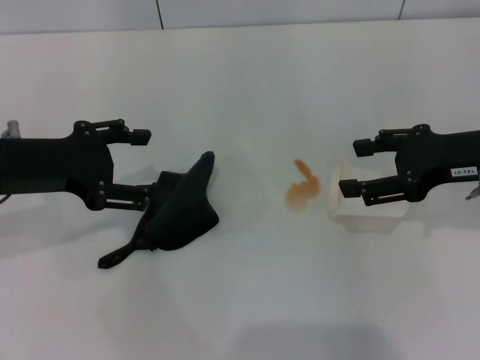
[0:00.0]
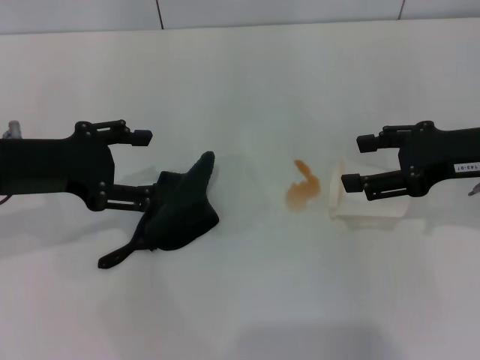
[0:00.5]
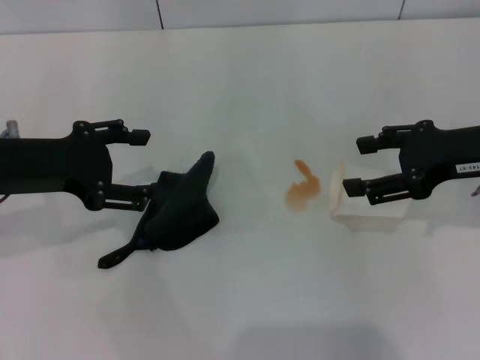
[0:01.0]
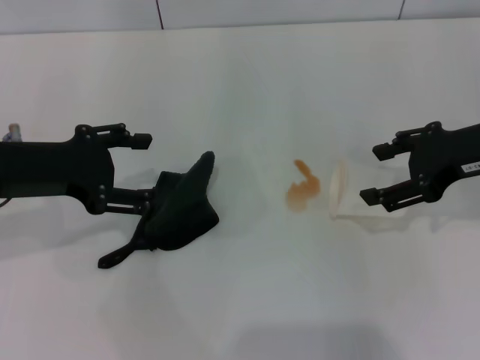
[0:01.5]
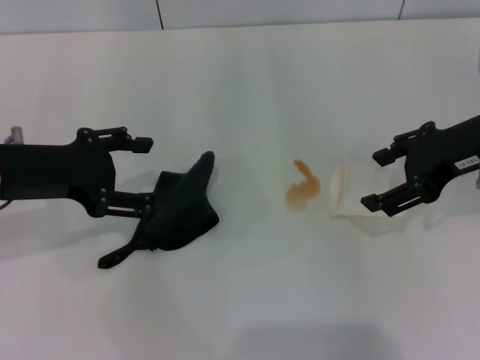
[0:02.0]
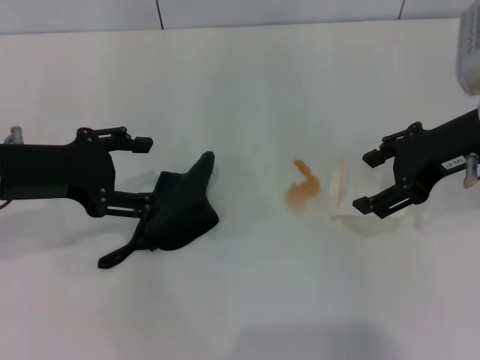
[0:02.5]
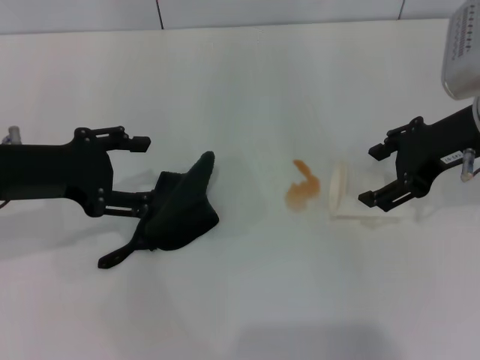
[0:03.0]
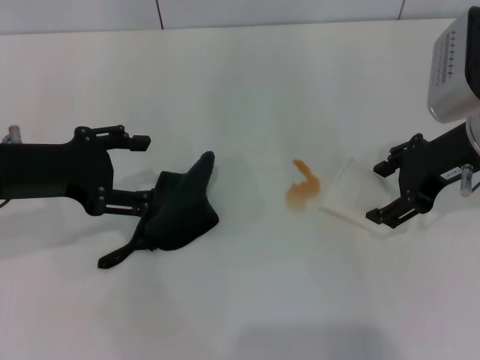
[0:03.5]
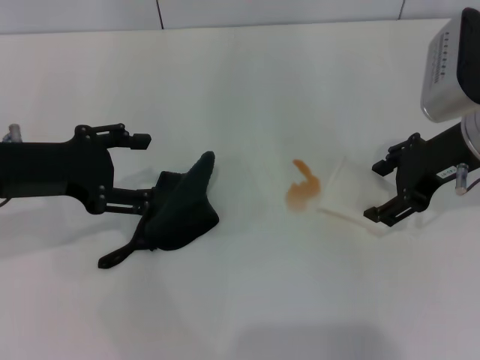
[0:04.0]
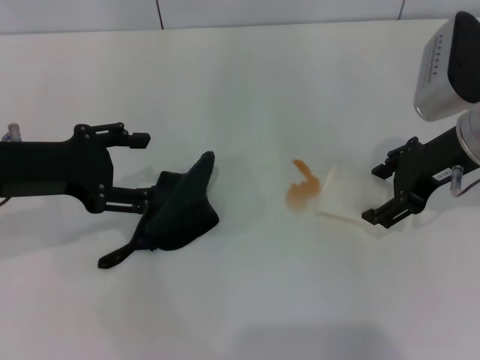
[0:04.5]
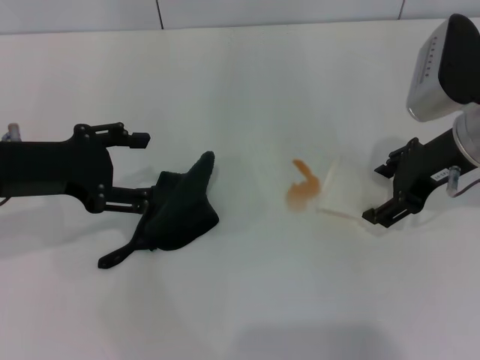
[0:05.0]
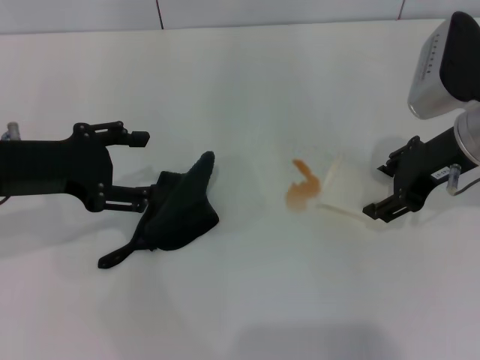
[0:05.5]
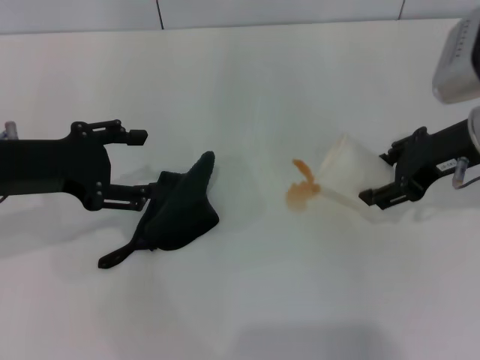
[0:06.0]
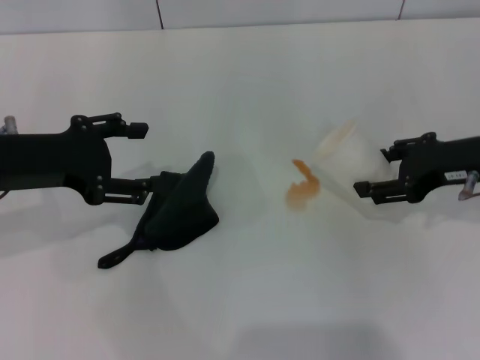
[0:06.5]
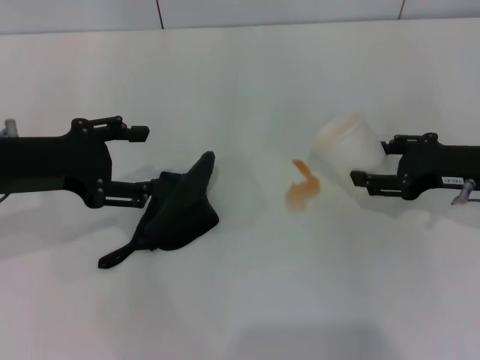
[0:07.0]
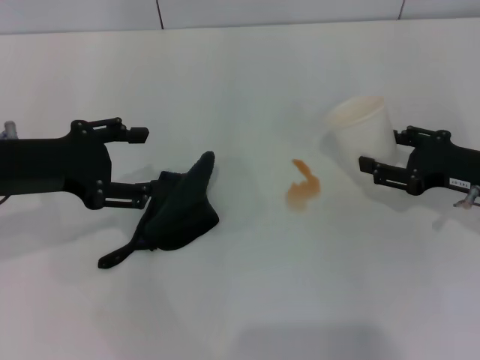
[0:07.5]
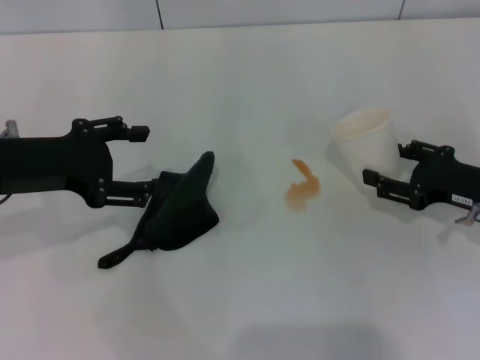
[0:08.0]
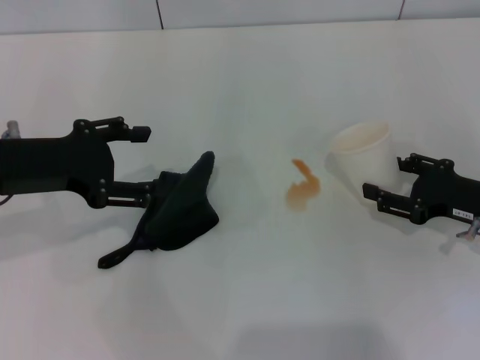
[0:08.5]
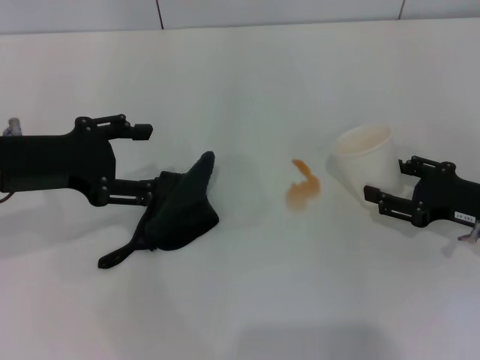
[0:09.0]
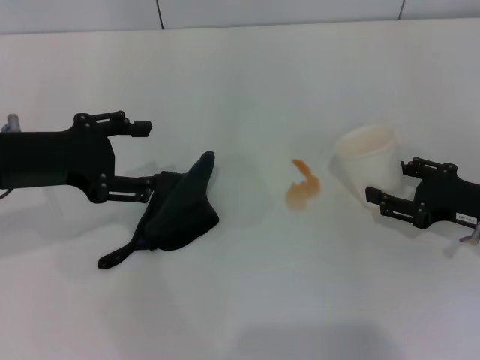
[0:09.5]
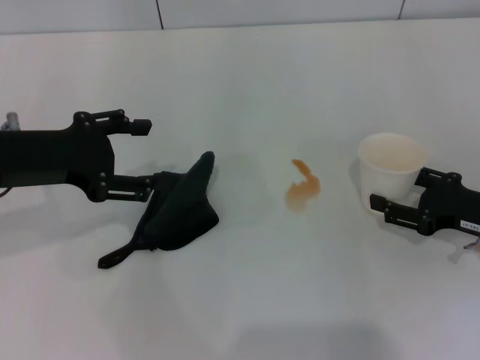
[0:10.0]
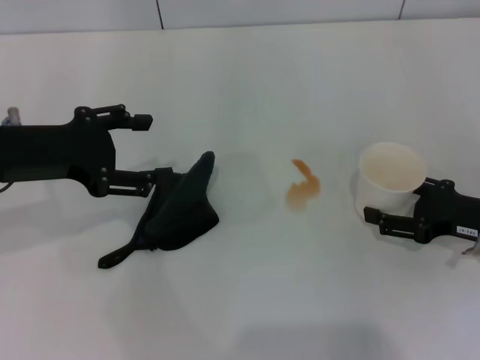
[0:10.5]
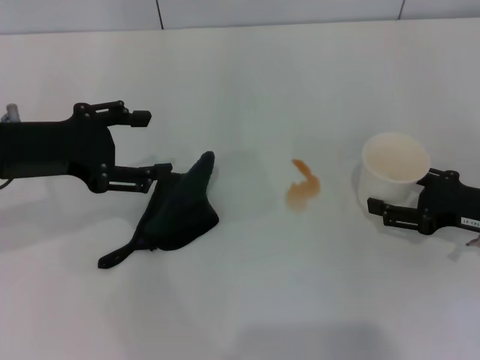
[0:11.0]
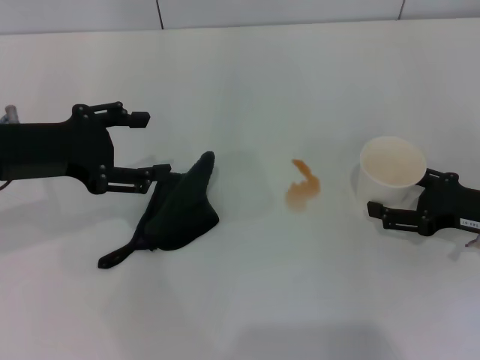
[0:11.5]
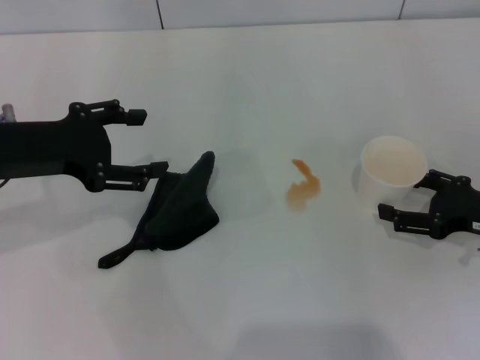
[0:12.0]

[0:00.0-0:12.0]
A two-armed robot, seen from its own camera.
Step, 0:00.0 to 0:05.5: Grasp the paper cup with the right gripper.
0:02.0 to 0:04.0: The grippers stay close to where they were, moving slightly.
0:04.0 to 0:06.0: The right gripper closes up.
0:06.0 to 0:08.0: The right gripper moves downward and to the right, some 15 cm.
0:08.0 to 0:10.0: There are only small adjustments of the grippers.
0:10.0 to 0:12.0: The right gripper opens its fingers.

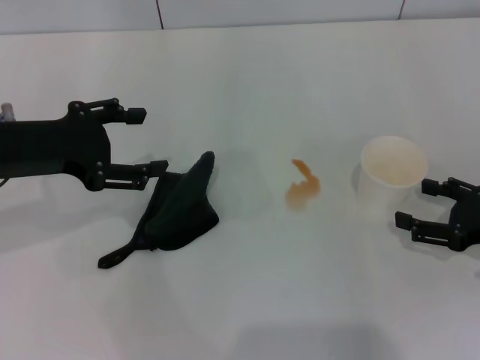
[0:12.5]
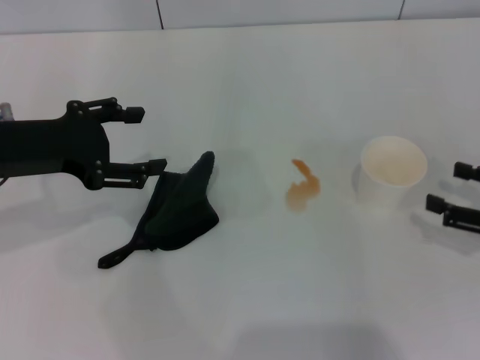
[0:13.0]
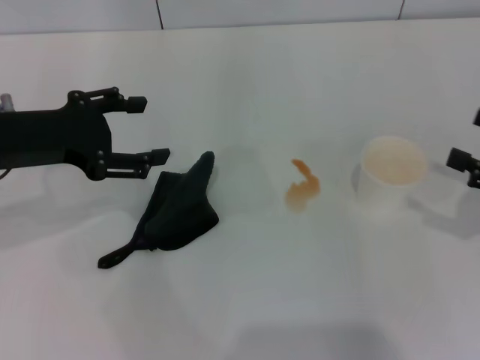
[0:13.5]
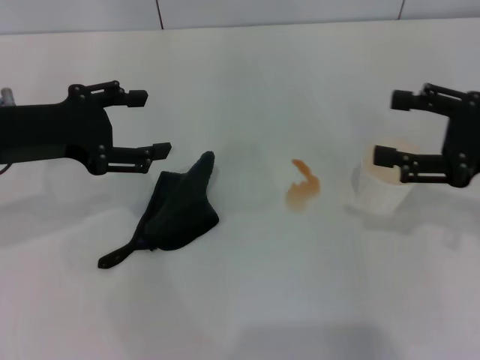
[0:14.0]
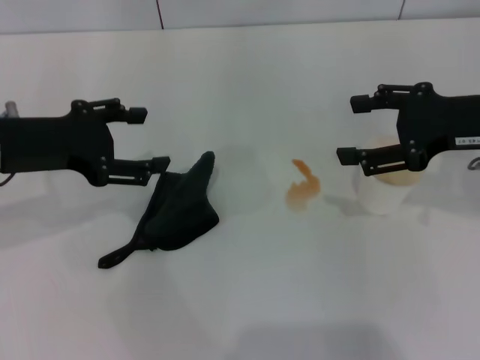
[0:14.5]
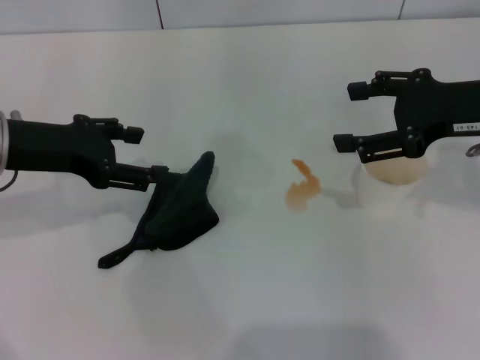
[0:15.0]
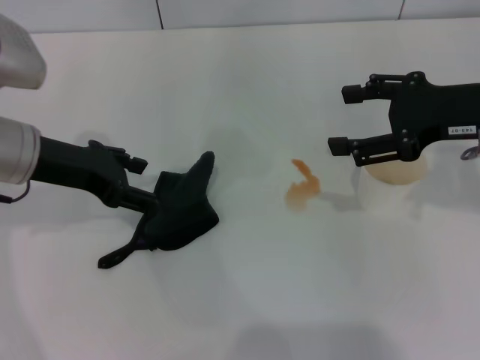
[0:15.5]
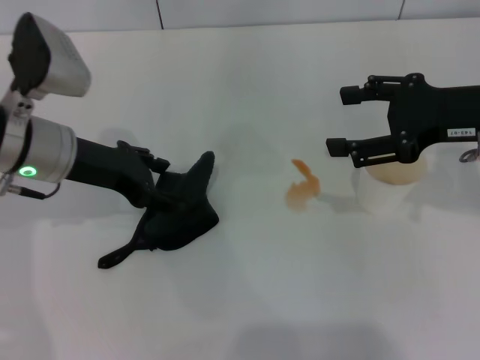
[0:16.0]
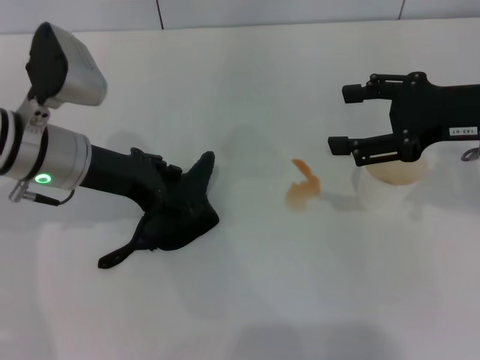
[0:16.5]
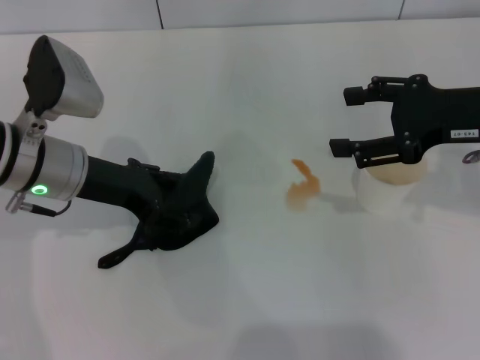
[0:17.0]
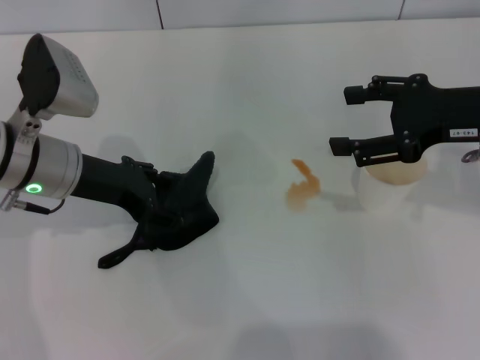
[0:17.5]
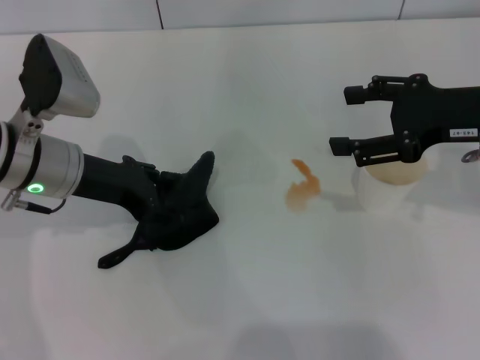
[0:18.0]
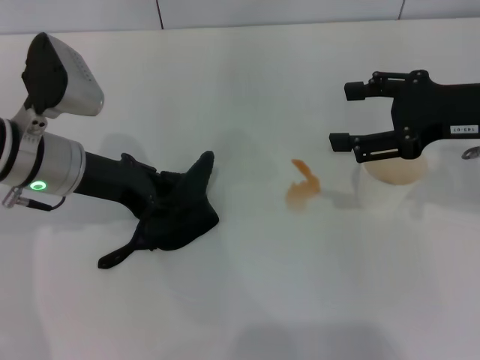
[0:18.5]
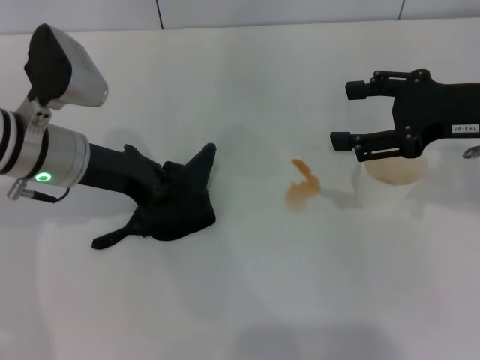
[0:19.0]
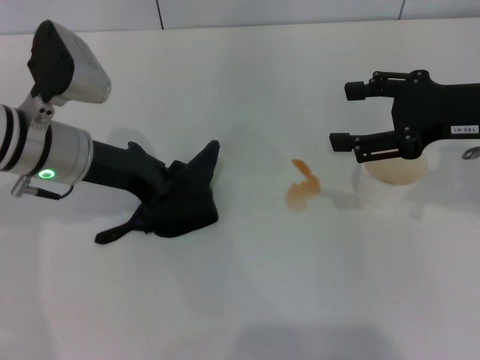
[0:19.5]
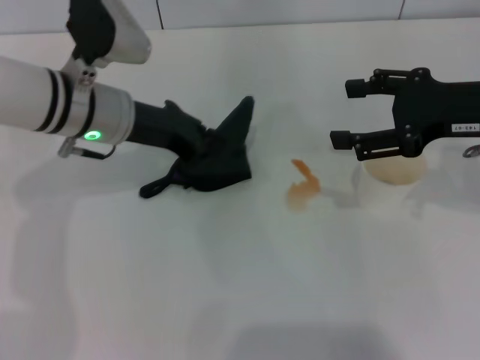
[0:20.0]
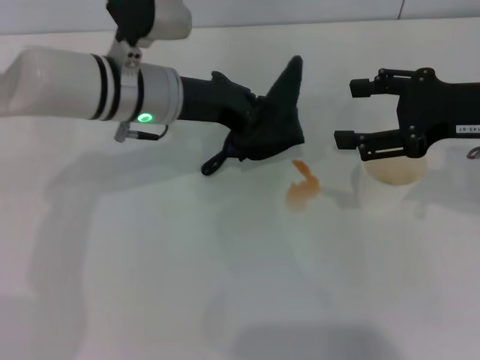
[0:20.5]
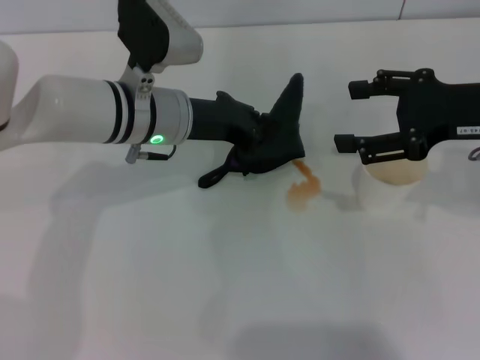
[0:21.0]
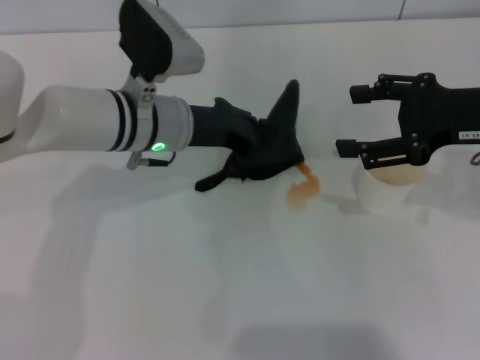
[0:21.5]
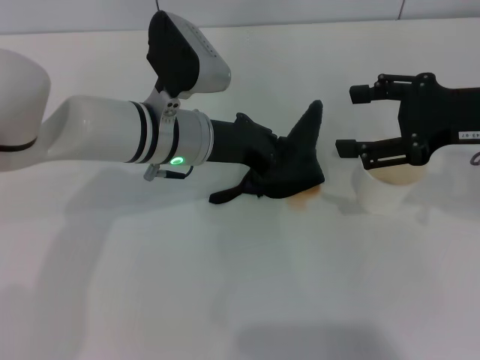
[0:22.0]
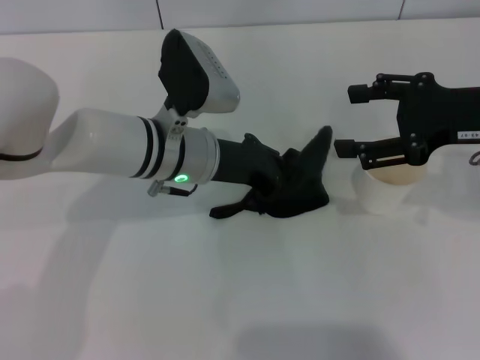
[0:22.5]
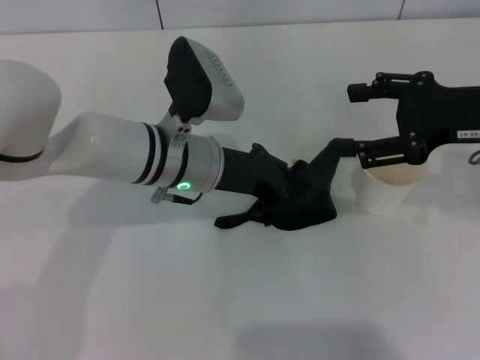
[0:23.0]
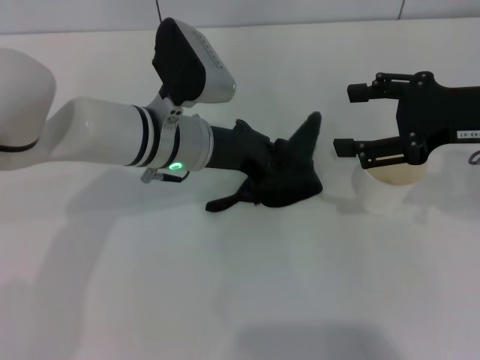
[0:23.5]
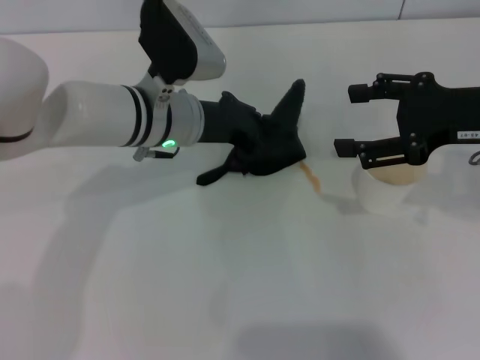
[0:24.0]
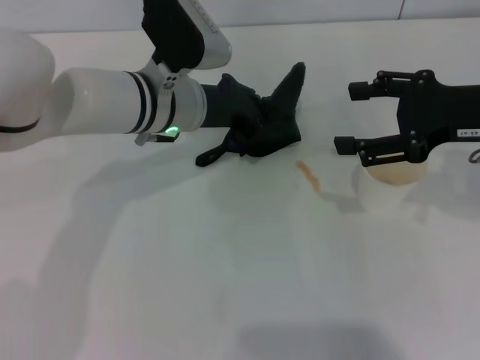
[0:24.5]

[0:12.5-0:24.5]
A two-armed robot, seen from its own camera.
Step, 0:12.5 to 0:19.0: Grasp the rag with the left gripper.
0:12.5 to 0:14.5: The right gripper is displaced upward, forward and to the left by some 15 cm.
0:14.5 to 0:16.5: The left gripper heads to the right, covering approximately 5 cm.
0:16.5 to 0:18.5: The left gripper closes up.
0:18.5 to 0:20.5: The left gripper shifts some 10 cm to the right, and closes its fingers.
0:20.5 to 0:22.5: The left gripper moves approximately 5 cm.

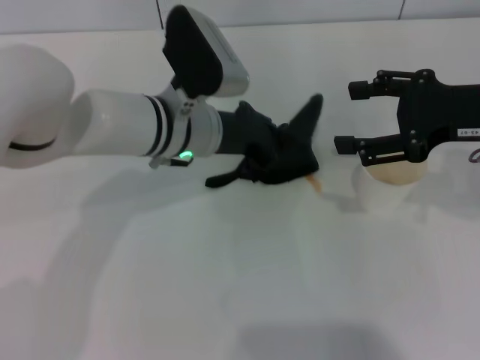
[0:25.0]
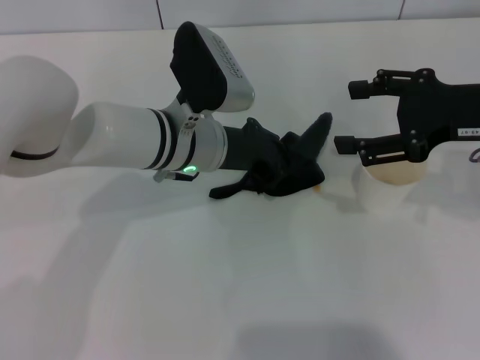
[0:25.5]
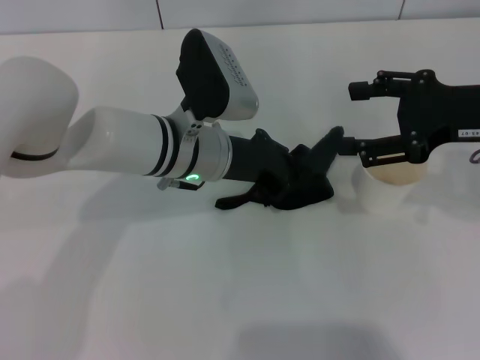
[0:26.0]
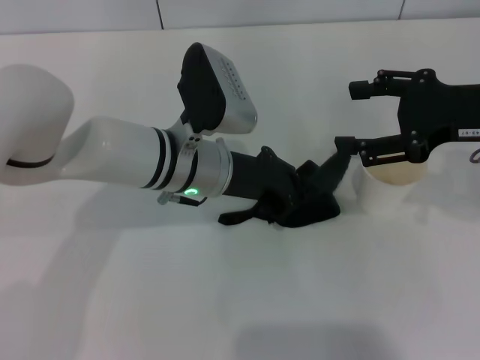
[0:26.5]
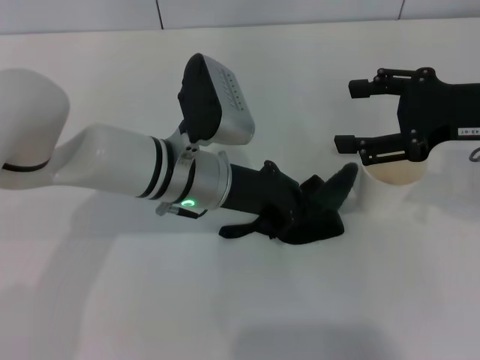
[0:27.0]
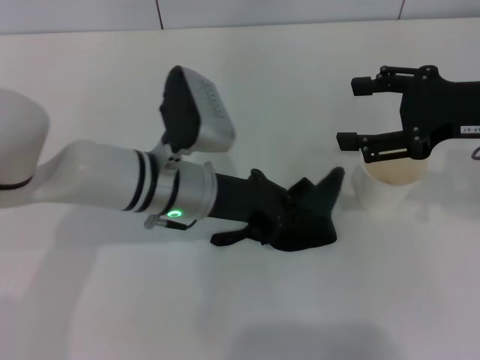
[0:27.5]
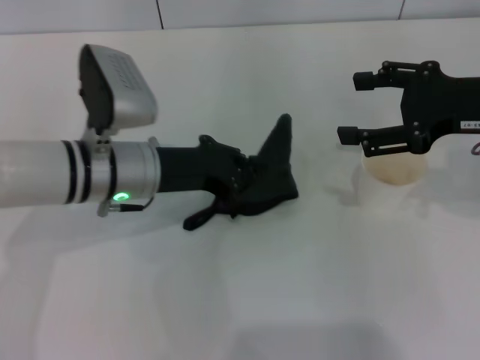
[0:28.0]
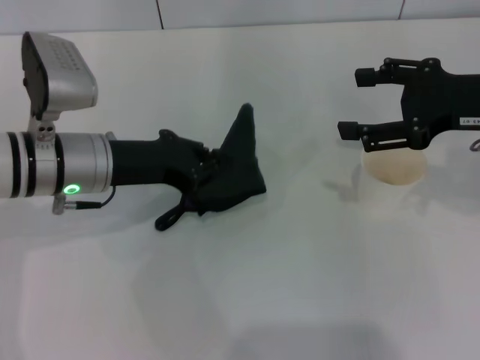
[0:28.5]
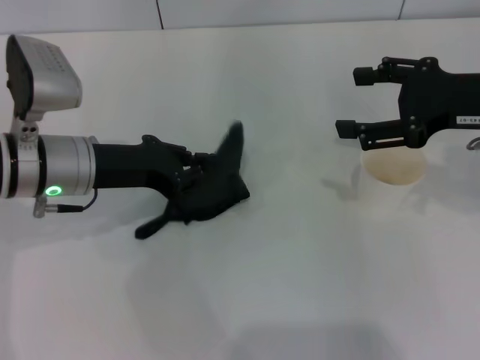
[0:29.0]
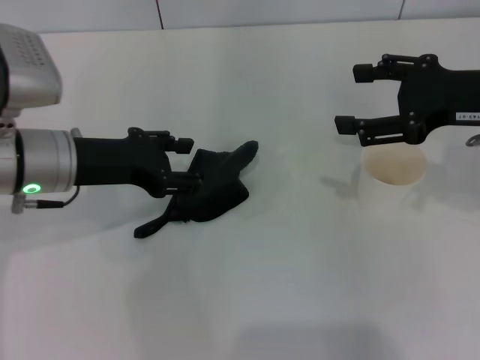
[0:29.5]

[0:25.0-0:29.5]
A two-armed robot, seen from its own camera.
Step, 0:25.0 to 0:28.0: Wipe the stains off the table with the left gripper.
0:25.0 to 0:27.0: There are only small adjustments of the grippers.
0:27.0 to 0:29.5: The left gripper goes some 15 cm to the left, and opens up.
